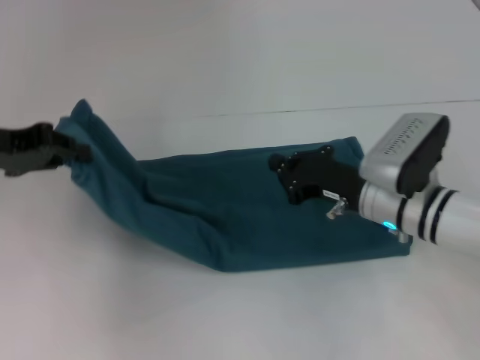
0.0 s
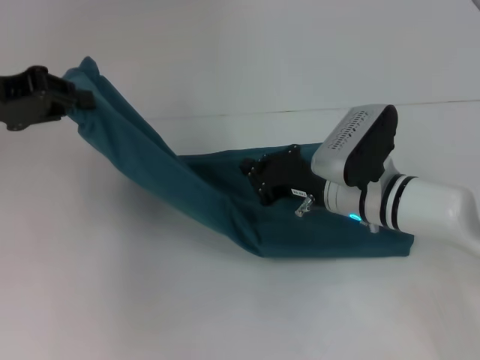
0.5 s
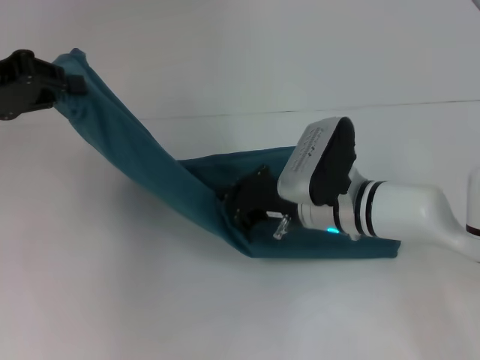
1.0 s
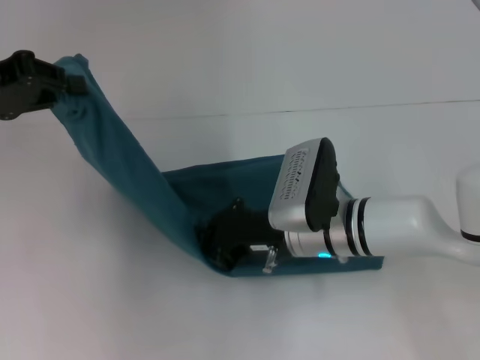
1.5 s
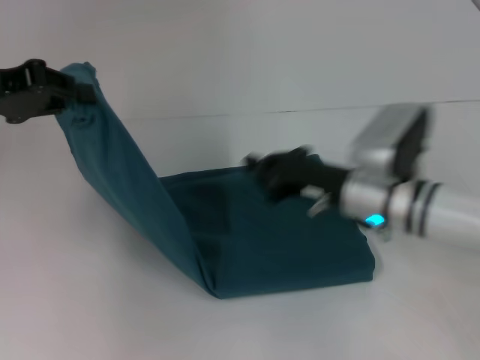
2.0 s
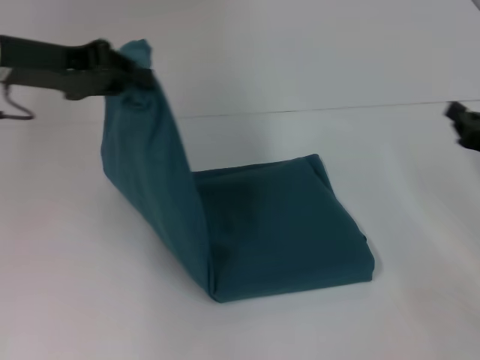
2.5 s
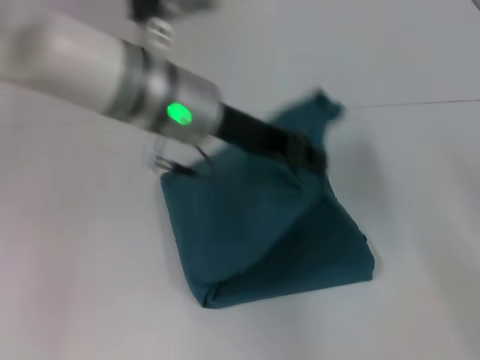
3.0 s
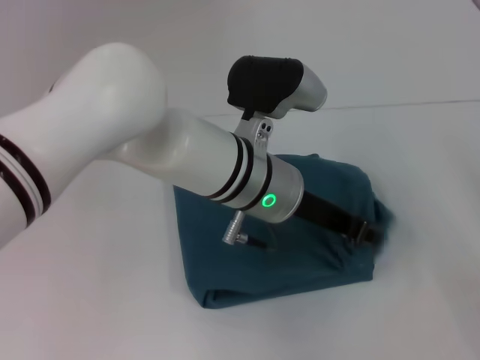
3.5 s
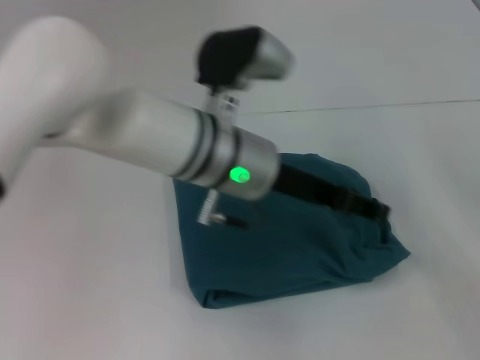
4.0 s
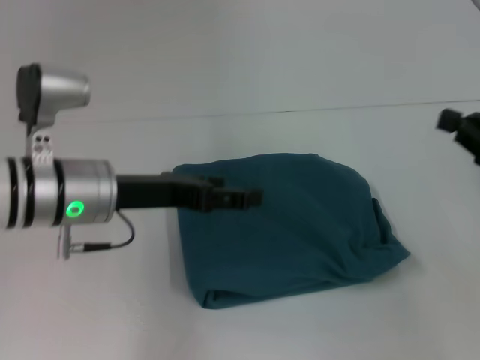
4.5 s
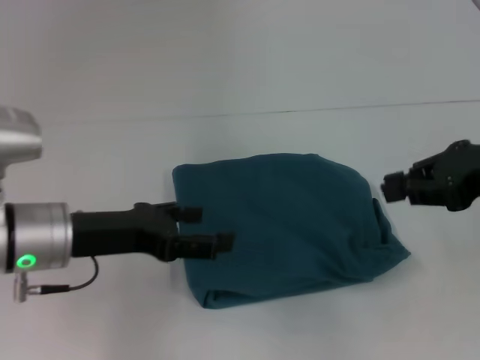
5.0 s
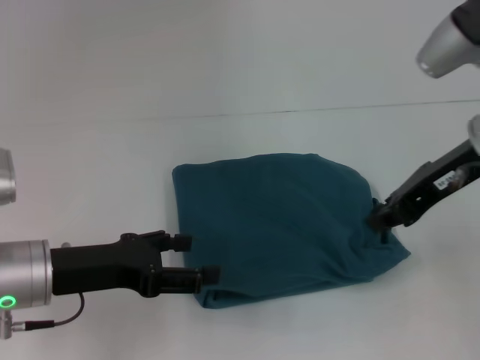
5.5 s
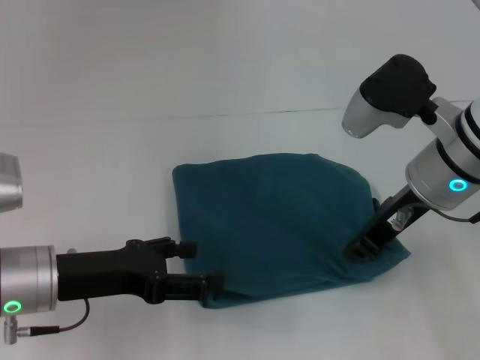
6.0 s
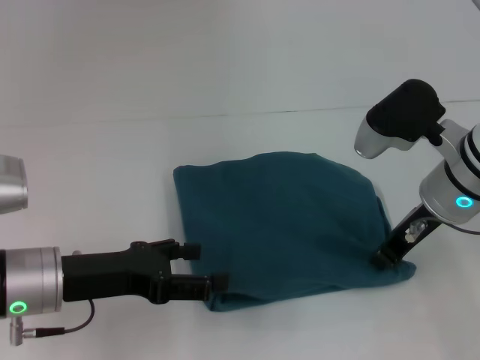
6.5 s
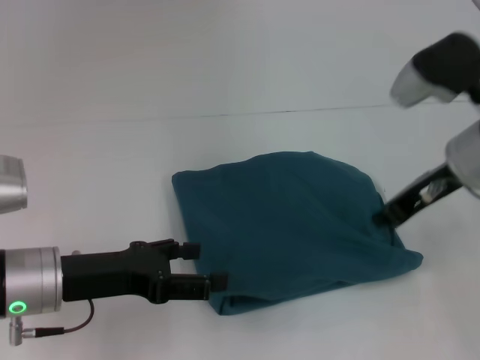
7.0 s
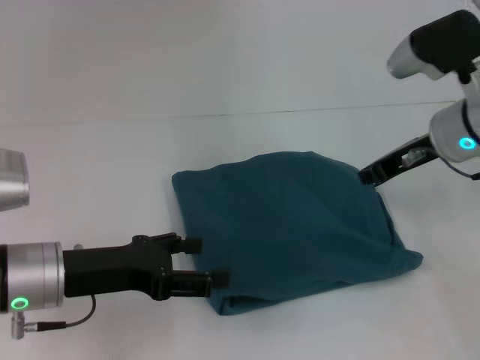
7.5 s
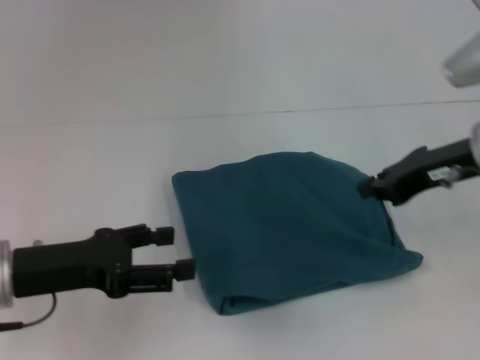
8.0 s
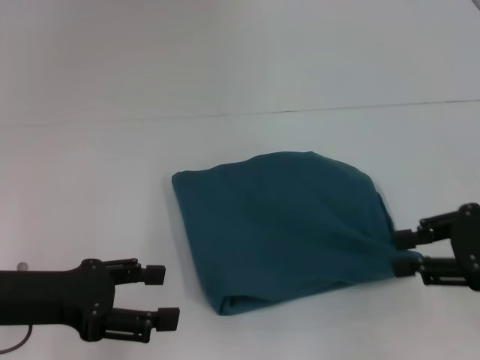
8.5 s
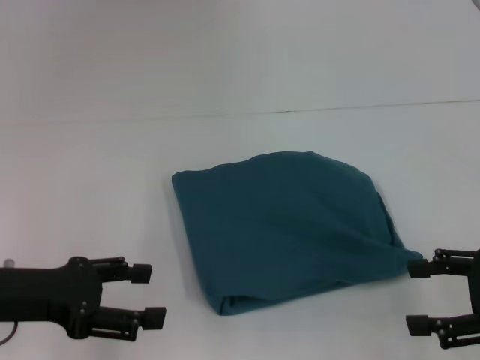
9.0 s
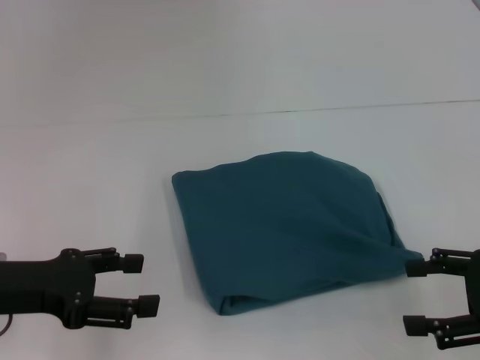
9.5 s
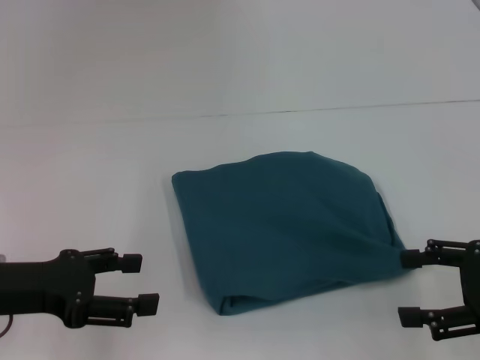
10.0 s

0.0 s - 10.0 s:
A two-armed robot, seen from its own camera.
Step, 2.0 s - 3.5 s: Fold the clothes to the left.
0.0 s - 2.0 s: The right gripper moves some 10 cm to the left and comes back.
2.0 s - 4.0 s: The two grippers go approximately 25 cm to the right. The left gripper opens its fingers.
4.0 s - 6.0 s: The left gripper heads to the left and downward, covering some 20 cm, and opens its fingers. The right gripper heads to the left and upward, covering roughly 20 cm.
6.0 s - 8.0 s: The right gripper moves to the right, approximately 5 cm.
8.0 s - 10.0 s: The right gripper shifts roughly 15 cm backward, to the right and downward, and opens its fingers.

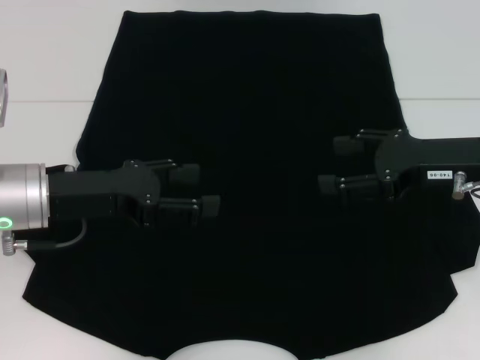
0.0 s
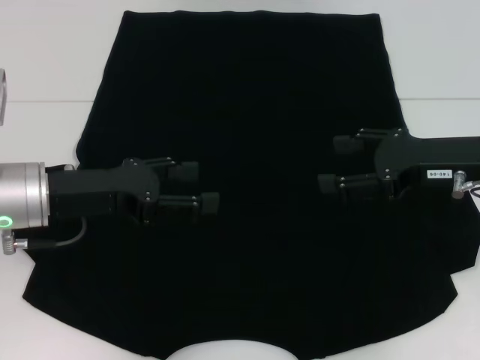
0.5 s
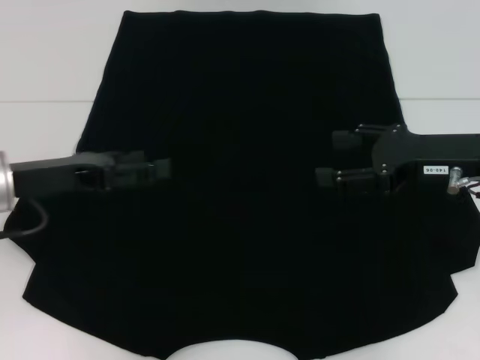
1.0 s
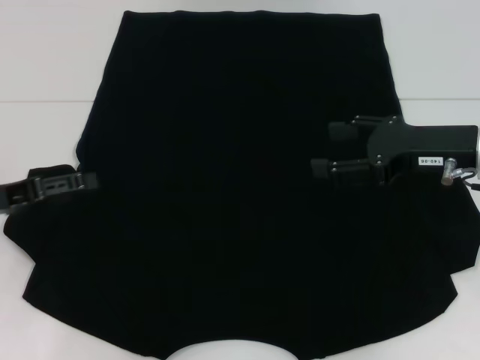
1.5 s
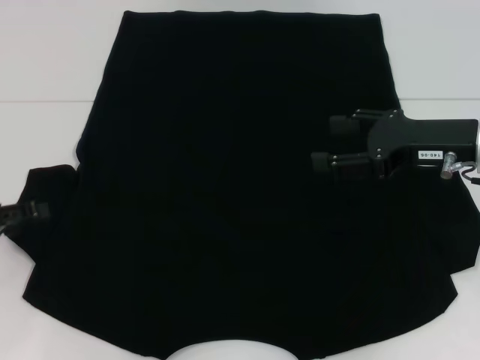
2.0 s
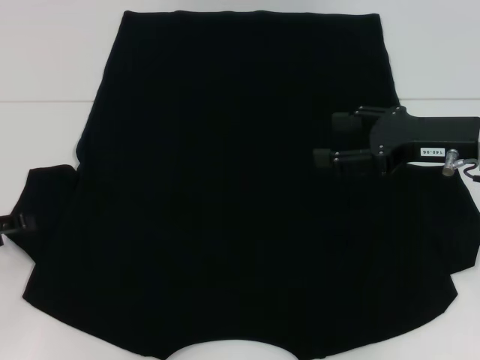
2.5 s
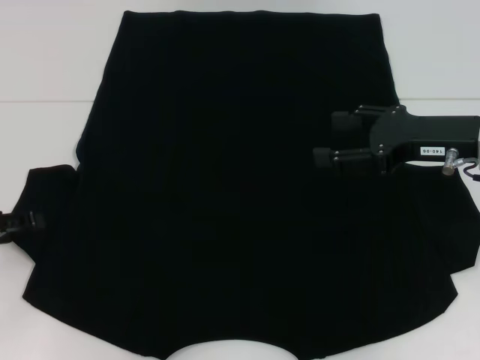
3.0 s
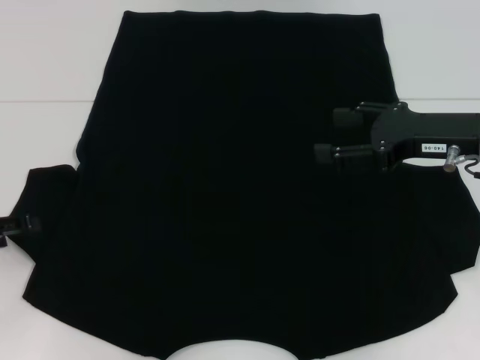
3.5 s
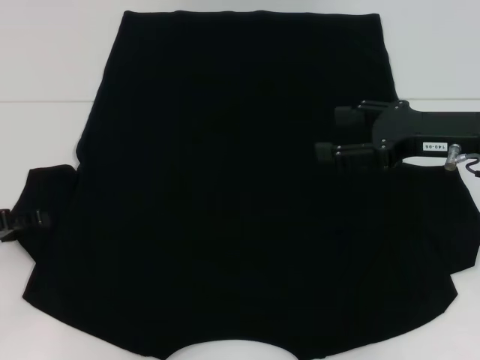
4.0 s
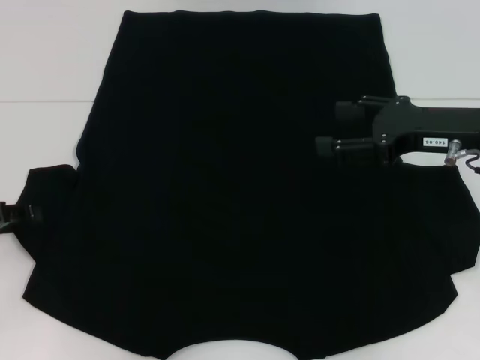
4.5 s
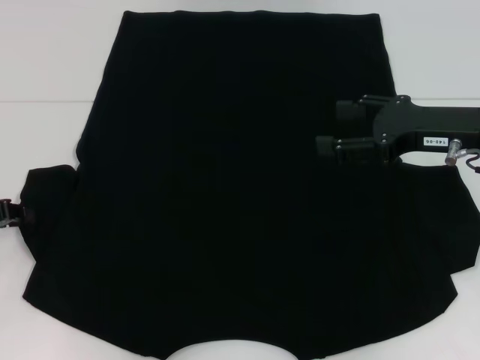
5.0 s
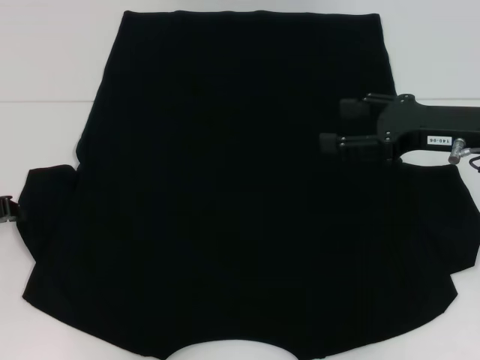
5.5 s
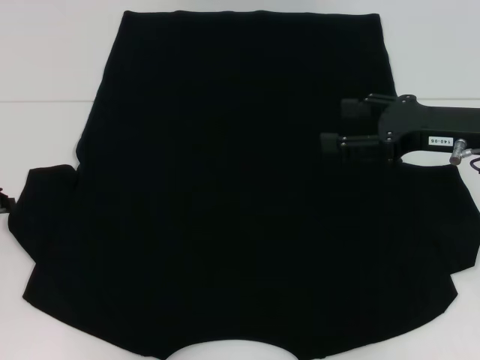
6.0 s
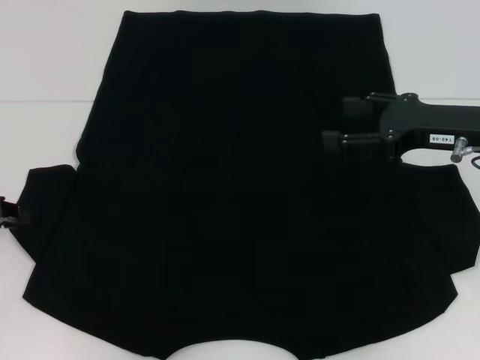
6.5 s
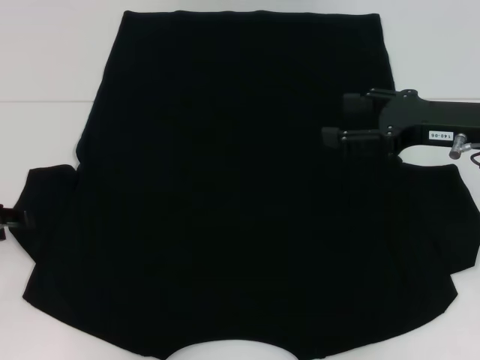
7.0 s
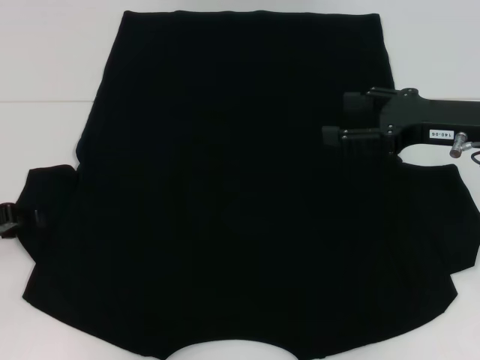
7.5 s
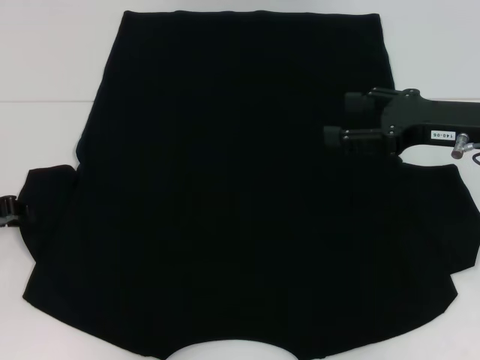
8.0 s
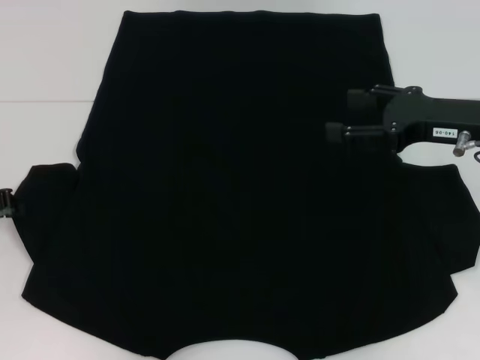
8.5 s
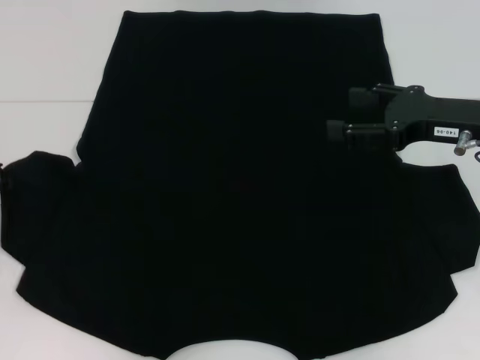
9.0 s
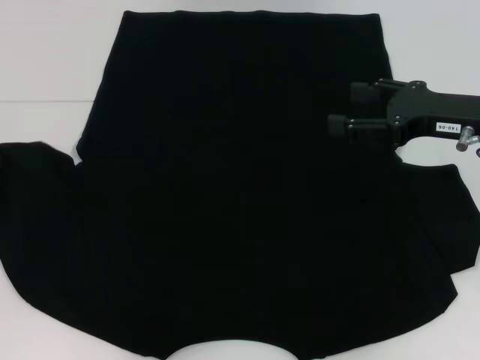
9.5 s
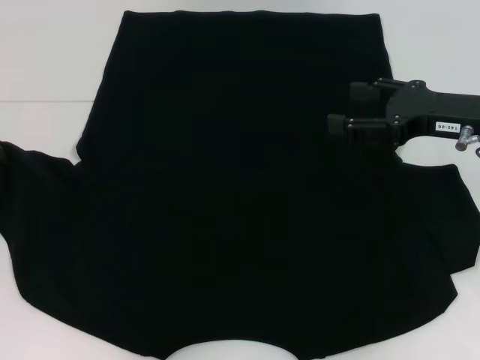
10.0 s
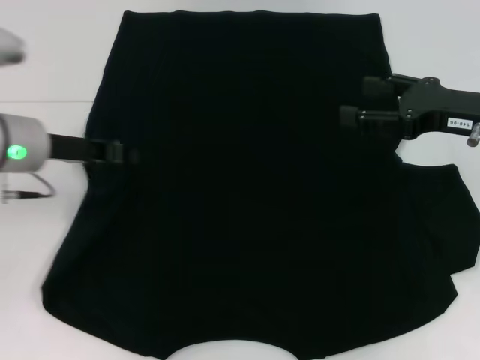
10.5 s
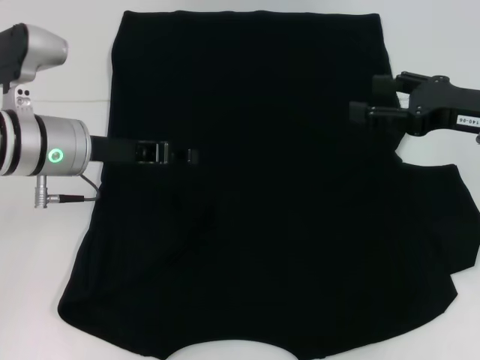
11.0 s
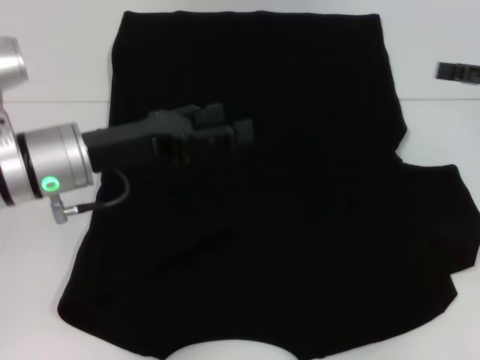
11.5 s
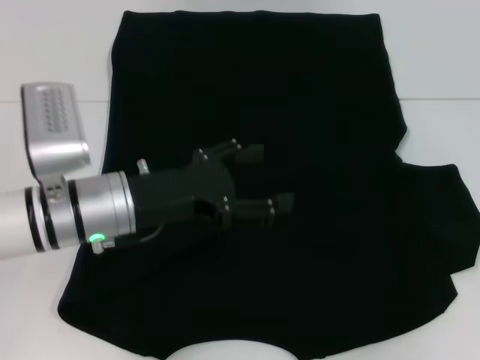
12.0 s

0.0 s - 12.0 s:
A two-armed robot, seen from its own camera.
Step, 0.0 s - 11.0 s: Fold the bottom left sleeve with your left hand.
0.0 s - 2.0 s: The left gripper shifts some 15 cm to the left.
2.0 s - 4.0 s: There are only small adjustments of the grippers.
8.0 s - 10.0 s: The left gripper closes its fingers.
10.0 s - 12.0 s: The two grippers go some 15 cm to the right. The left gripper opens its fingers.

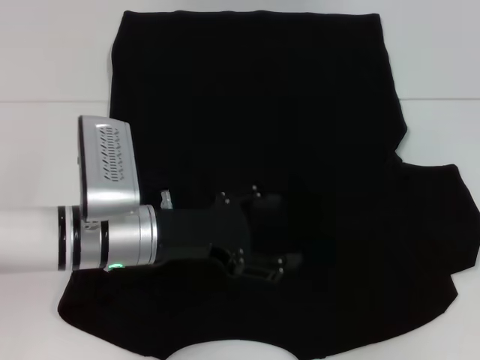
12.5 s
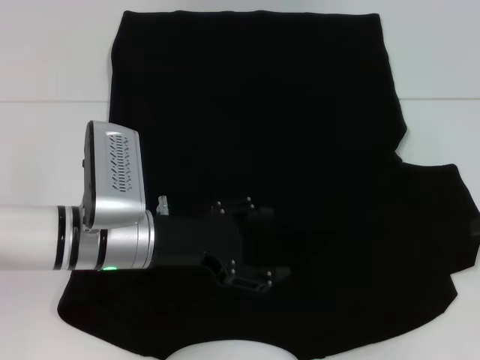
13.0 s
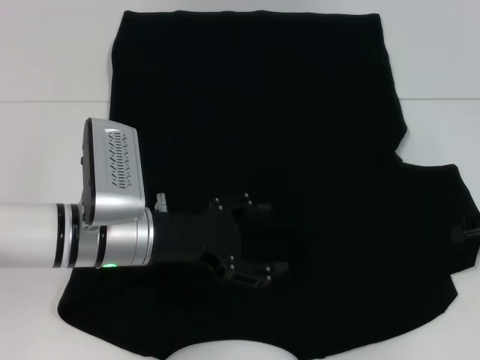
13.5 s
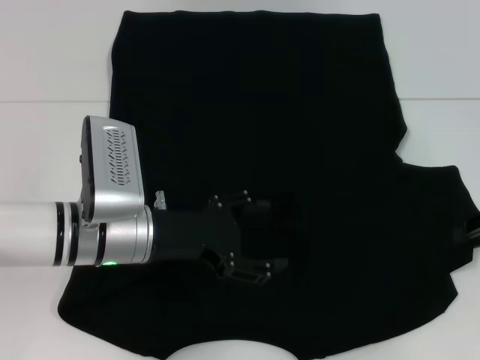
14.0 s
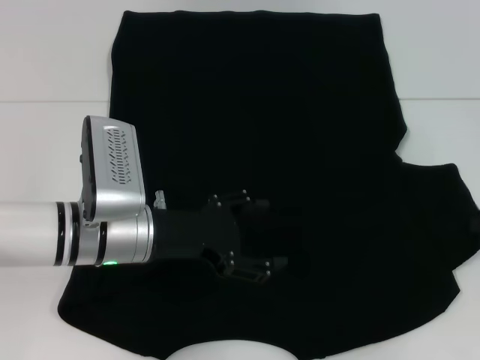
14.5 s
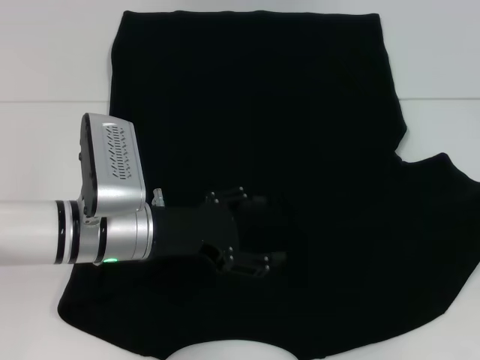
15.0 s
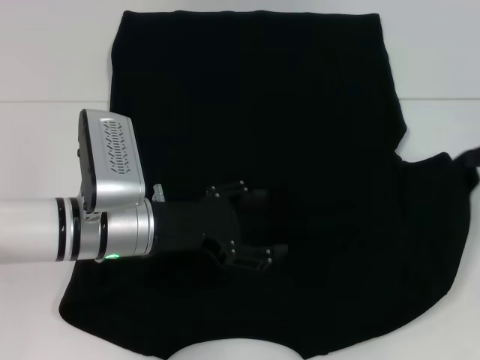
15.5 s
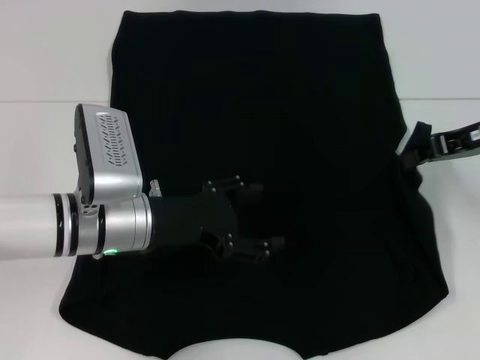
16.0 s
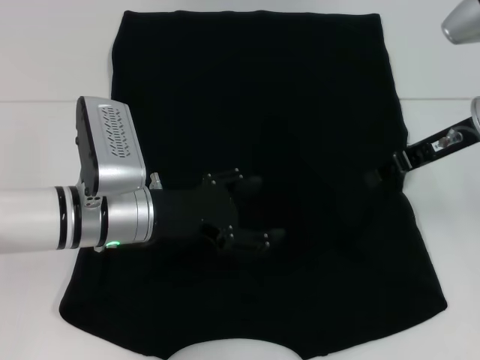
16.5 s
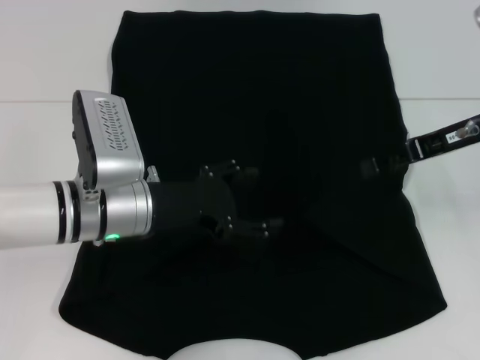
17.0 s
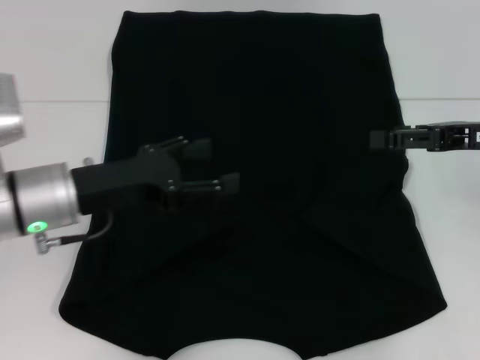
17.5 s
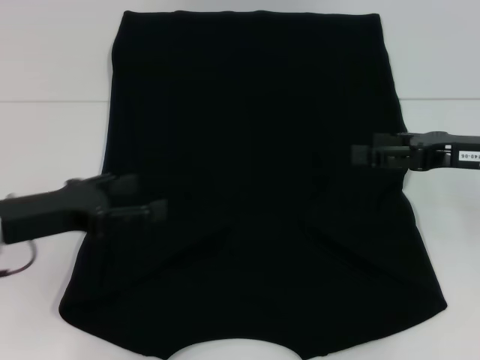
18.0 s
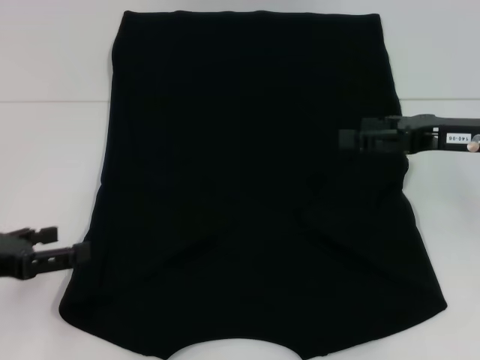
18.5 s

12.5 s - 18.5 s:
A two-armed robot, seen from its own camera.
Step, 12.5 s - 16.0 s: Fold the bottom right sleeve with your right hand.
12.5 s - 14.5 s: The right gripper changes place by about 5 cm, and closes its fingers.
14.5 s - 16.5 s: The right gripper heads to the left and upward, covering some 15 cm.
16.5 s - 18.5 s: The left gripper goes about 20 cm to the left and backward. The right gripper ends up approximately 5 cm from where it was, and opens.
